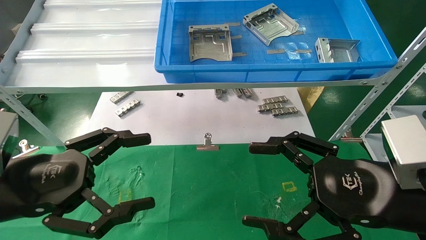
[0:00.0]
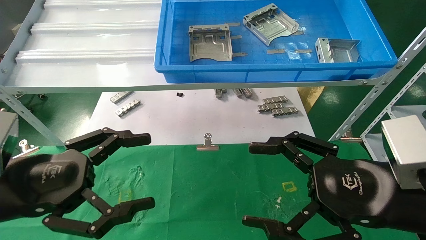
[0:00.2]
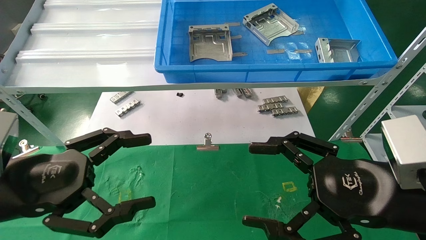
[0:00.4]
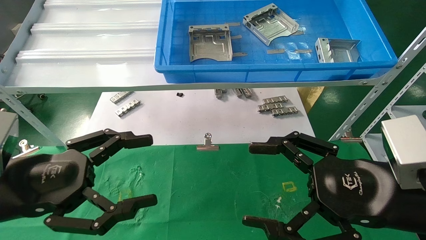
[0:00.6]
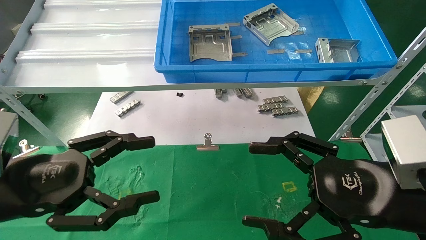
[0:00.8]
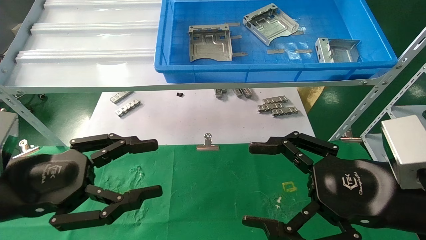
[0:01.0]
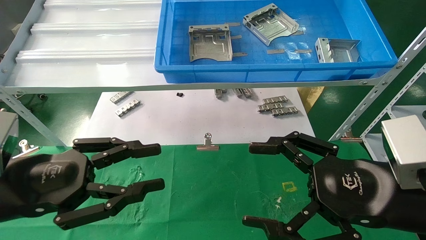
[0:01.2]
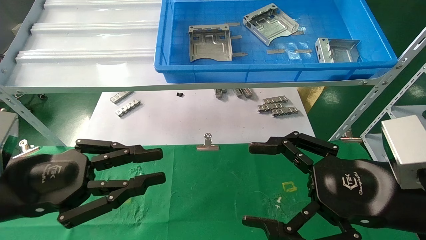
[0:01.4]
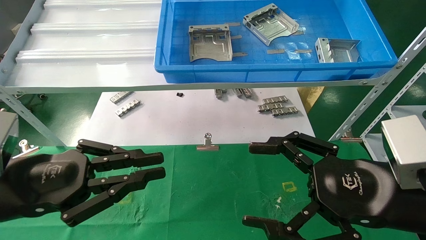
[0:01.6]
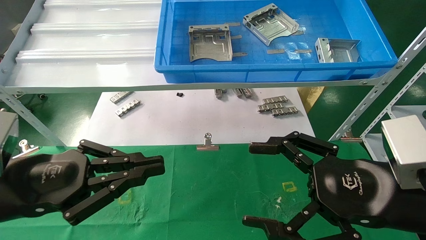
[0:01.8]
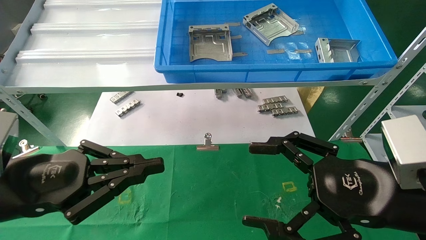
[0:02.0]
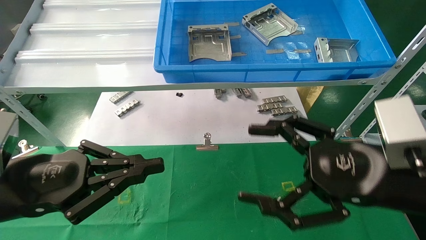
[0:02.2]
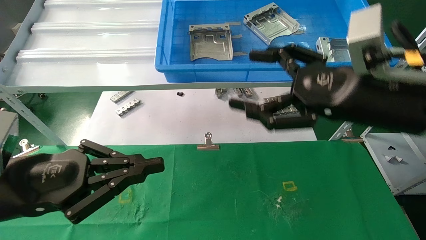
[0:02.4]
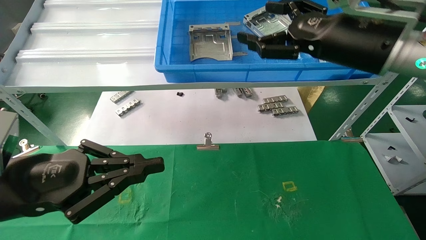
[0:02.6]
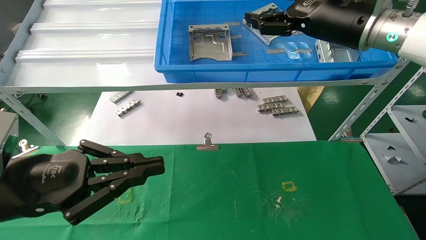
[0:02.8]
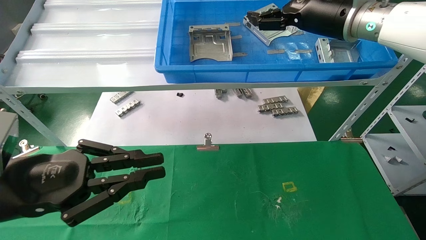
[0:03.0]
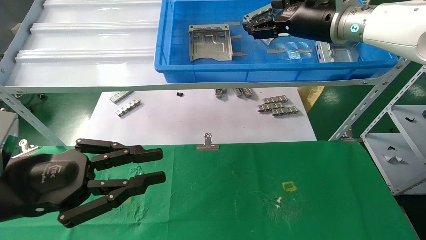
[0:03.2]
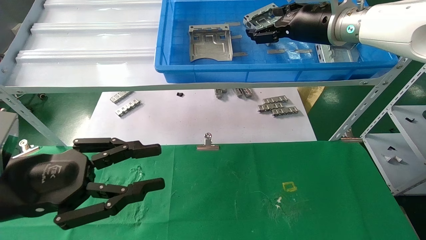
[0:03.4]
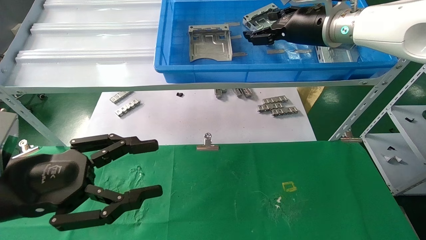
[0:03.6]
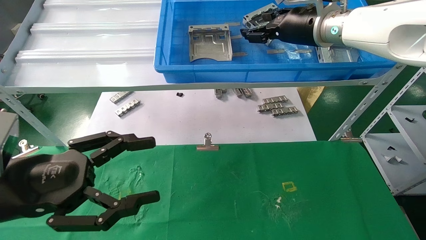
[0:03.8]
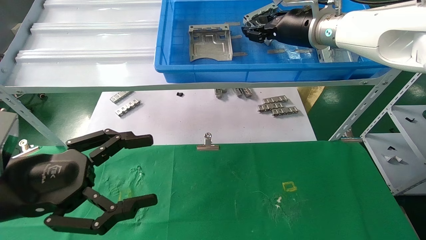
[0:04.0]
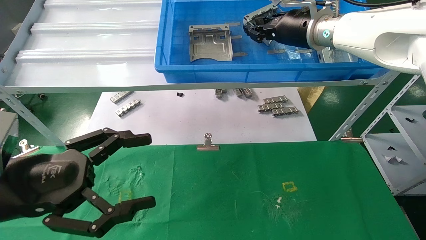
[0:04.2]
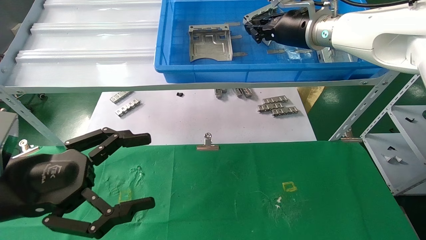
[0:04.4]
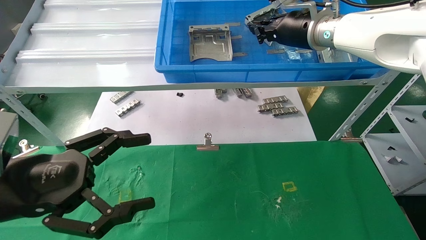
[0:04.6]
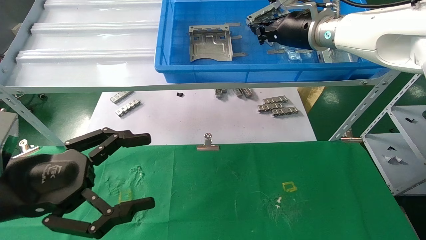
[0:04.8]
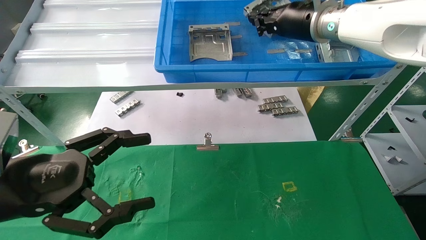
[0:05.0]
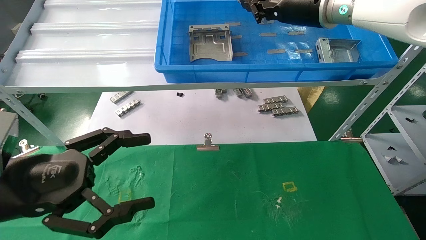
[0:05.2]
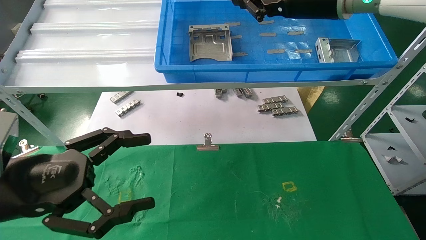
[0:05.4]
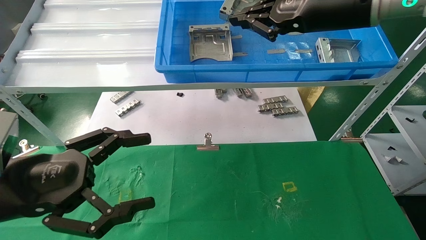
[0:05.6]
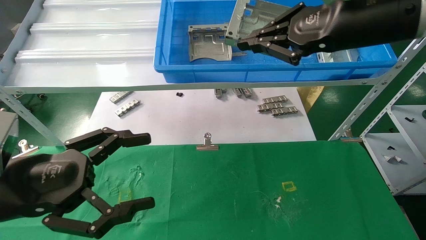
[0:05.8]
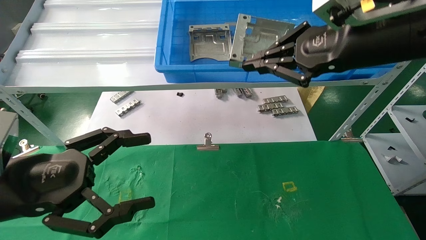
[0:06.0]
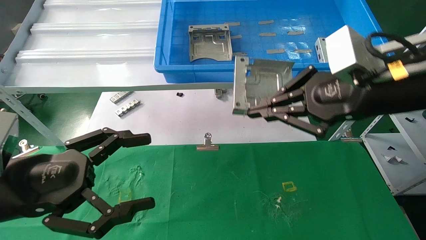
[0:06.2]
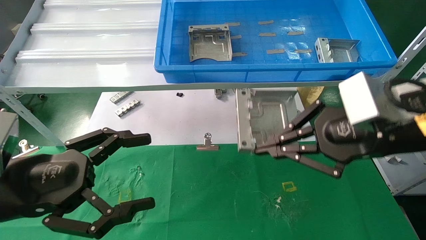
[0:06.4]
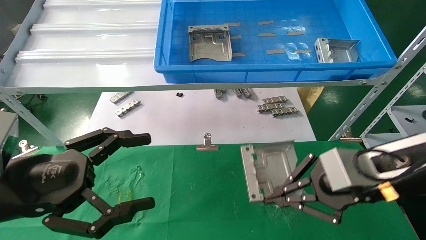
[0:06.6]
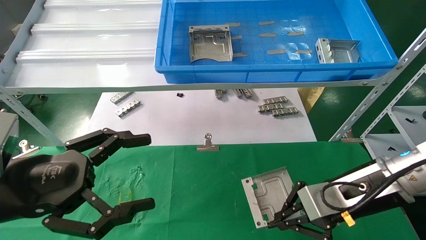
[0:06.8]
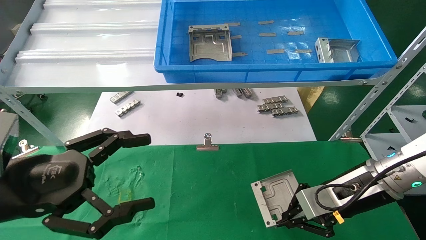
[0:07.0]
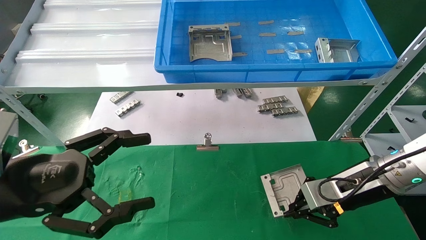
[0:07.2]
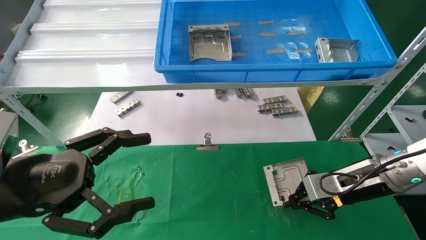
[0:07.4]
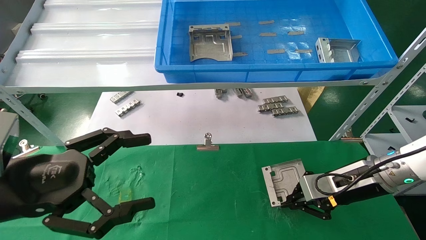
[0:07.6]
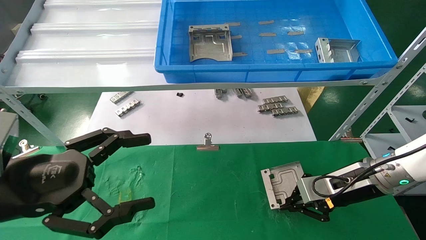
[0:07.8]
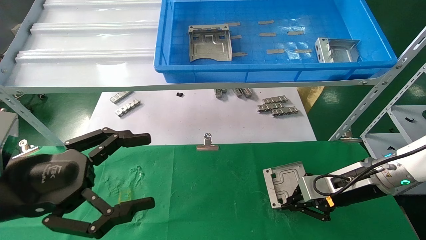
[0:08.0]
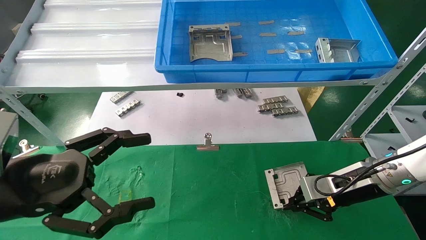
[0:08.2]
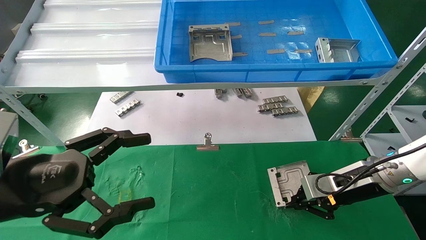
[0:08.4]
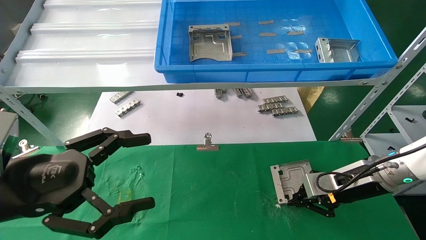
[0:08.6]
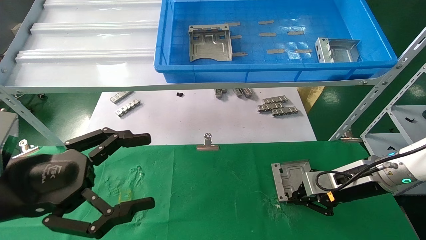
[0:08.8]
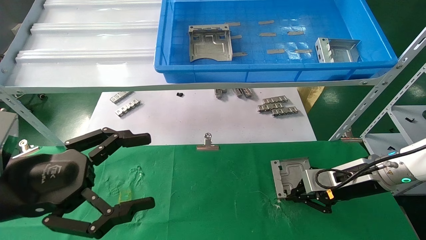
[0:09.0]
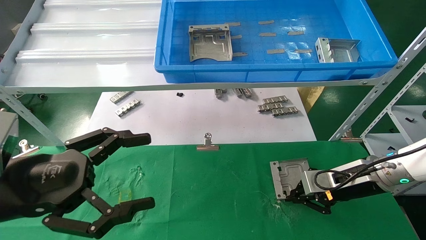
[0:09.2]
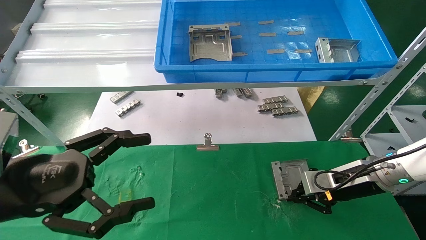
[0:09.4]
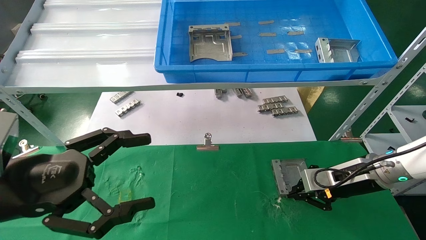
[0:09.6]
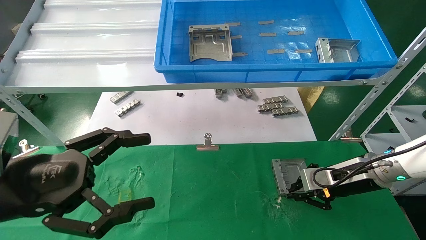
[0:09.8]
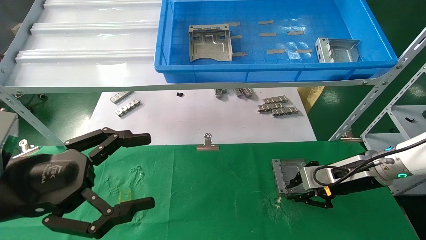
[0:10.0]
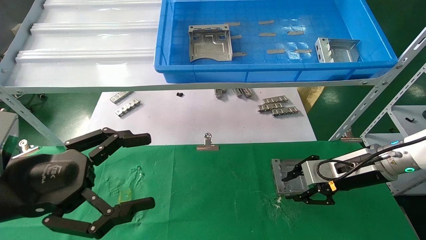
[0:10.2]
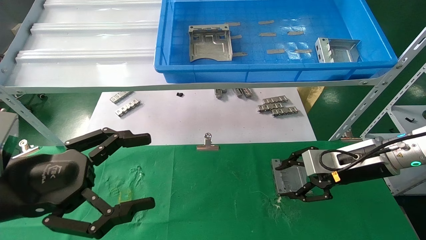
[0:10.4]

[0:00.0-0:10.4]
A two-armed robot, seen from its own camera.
Task of the whole recording: use the mechanical arm to pick up the parts and place them on the table.
Step, 0:02.6 to 0:05.8: Pick up the hard drive bracket from the feeding area.
Step, 0:06.0 to 0:10.4: Place the hard drive bracket into the box.
0:00.0 to 0:01.4: The left gripper closes up.
0:01.4 to 0:03.0: The right gripper shifts about 30 cm forward and upward.
0:03.0 to 0:04.4: The left gripper opens. Meanwhile the right gripper changes place by roughly 5 cm, and closes its fingers.
0:04.4 to 0:06.0: The right gripper is displaced backward by roughly 15 cm.
0:06.0 to 0:07.4: The right gripper heads downward, covering roughly 25 cm.
0:07.4 to 0:09.0: The grippers move only a little.
0:09.0 to 0:10.4: The right gripper opens.

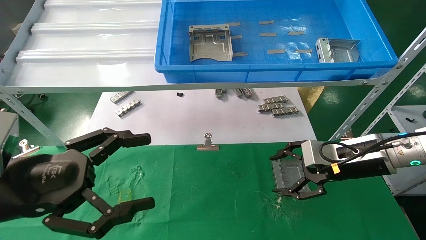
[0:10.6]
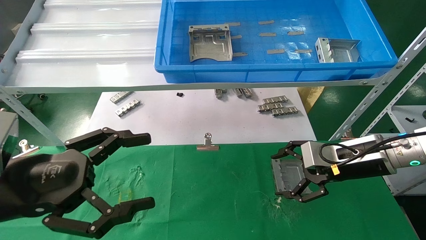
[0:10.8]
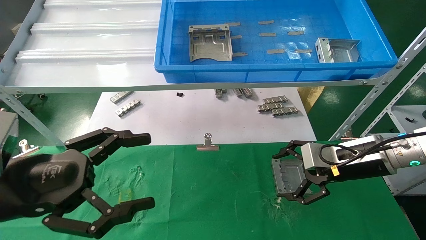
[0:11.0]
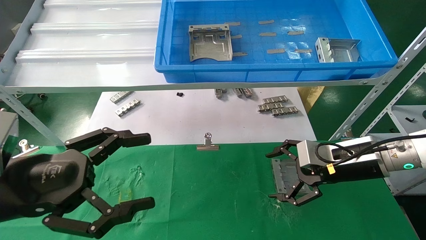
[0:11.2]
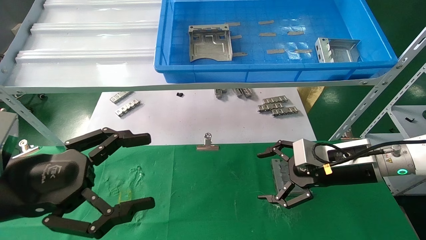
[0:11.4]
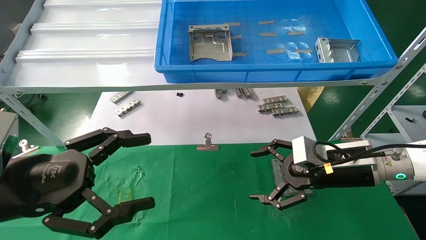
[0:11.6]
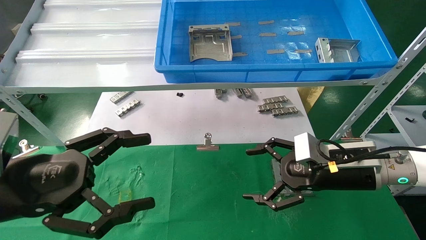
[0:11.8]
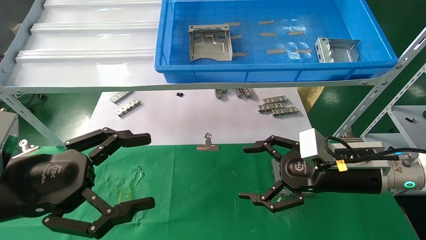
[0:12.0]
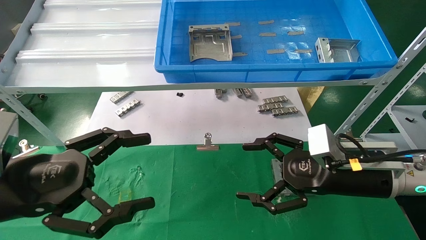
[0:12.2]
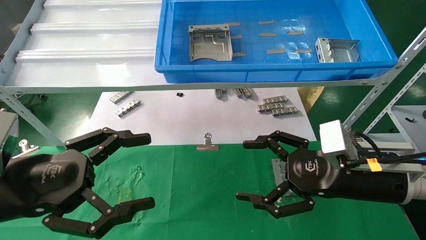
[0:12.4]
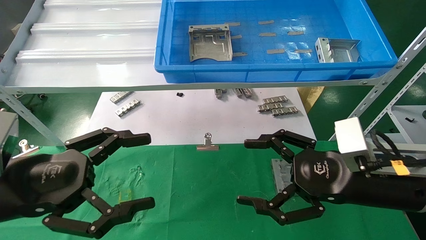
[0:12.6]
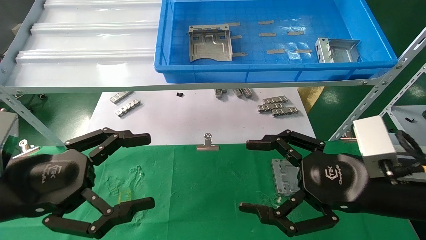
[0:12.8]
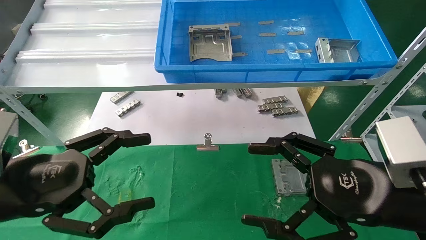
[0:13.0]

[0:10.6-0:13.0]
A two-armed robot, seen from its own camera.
Task of the whole recording: use the mechanical arm to pick up the parts and place them on the table.
0:10.6 to 0:11.8: The right gripper moves some 5 cm, and opens up.
0:11.8 to 0:13.0: The right gripper heads backward, covering some 10 cm.
